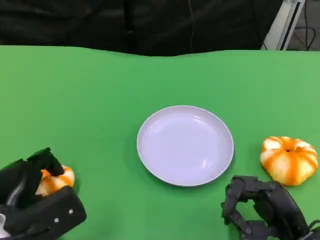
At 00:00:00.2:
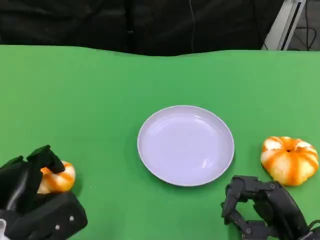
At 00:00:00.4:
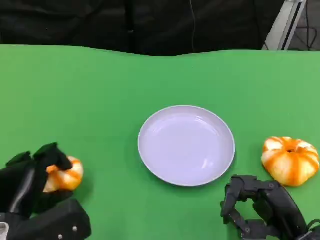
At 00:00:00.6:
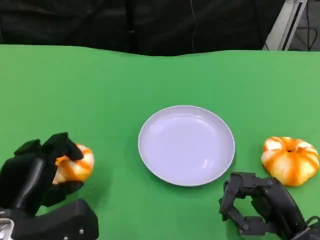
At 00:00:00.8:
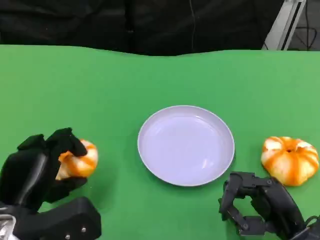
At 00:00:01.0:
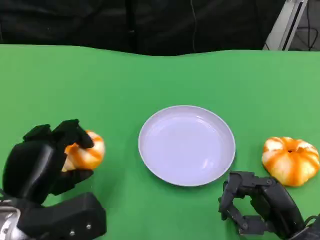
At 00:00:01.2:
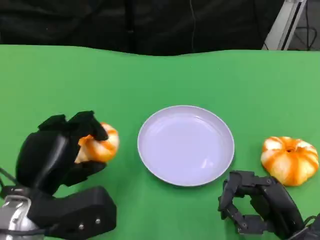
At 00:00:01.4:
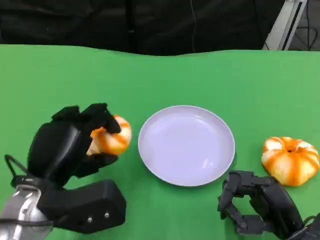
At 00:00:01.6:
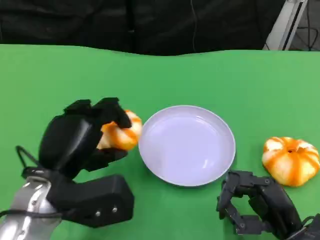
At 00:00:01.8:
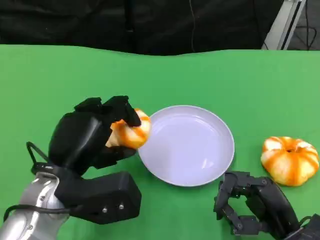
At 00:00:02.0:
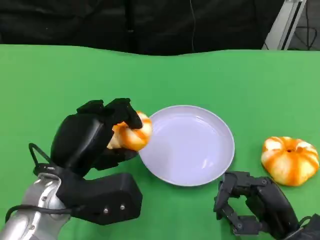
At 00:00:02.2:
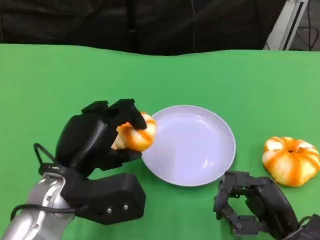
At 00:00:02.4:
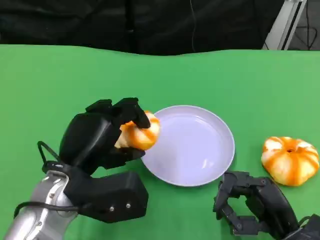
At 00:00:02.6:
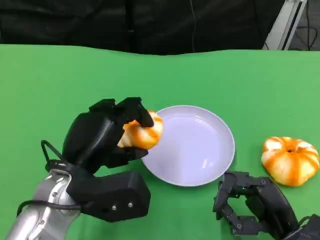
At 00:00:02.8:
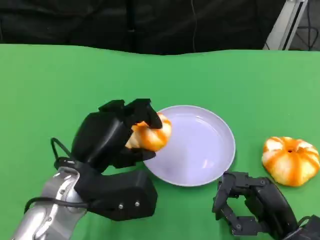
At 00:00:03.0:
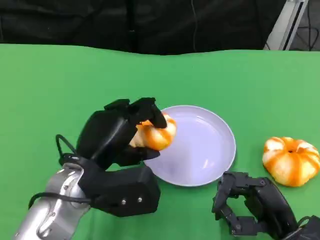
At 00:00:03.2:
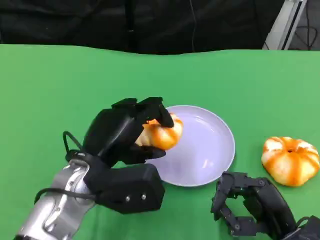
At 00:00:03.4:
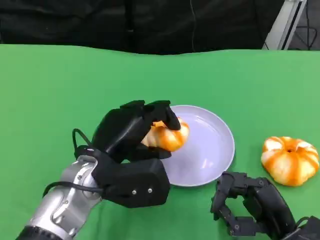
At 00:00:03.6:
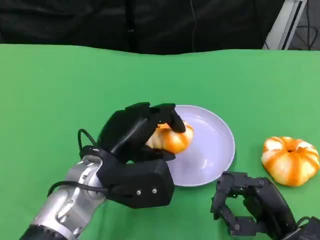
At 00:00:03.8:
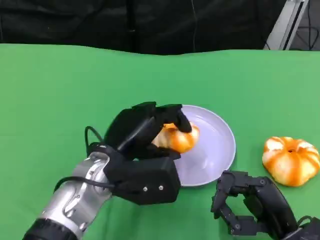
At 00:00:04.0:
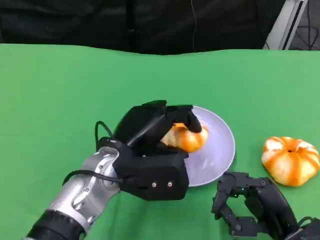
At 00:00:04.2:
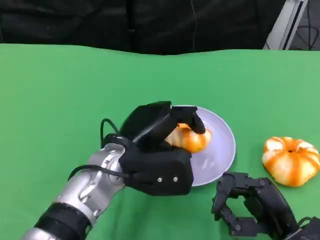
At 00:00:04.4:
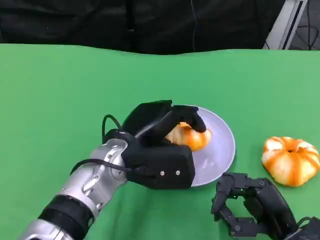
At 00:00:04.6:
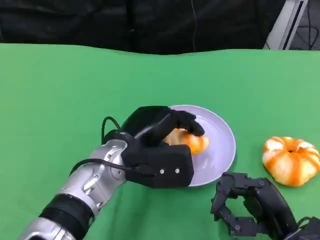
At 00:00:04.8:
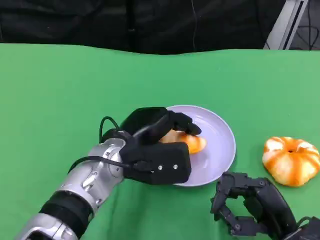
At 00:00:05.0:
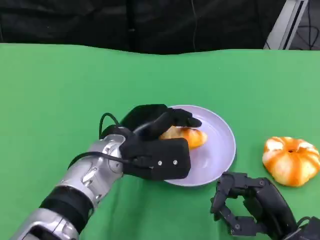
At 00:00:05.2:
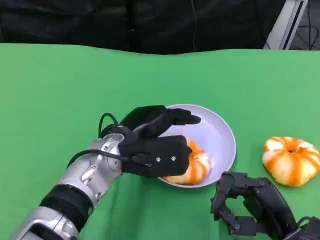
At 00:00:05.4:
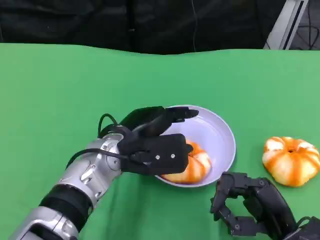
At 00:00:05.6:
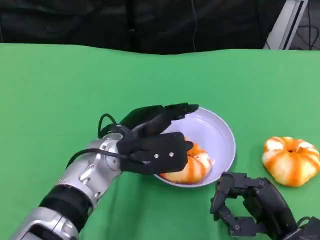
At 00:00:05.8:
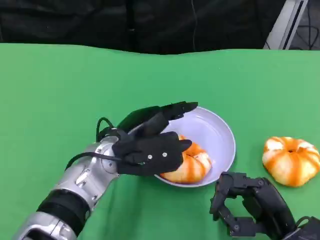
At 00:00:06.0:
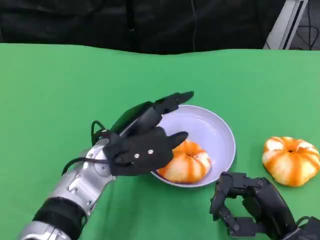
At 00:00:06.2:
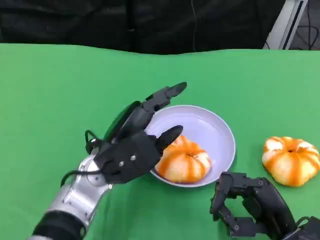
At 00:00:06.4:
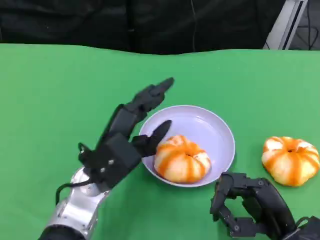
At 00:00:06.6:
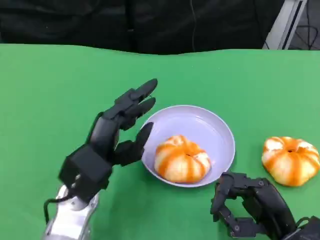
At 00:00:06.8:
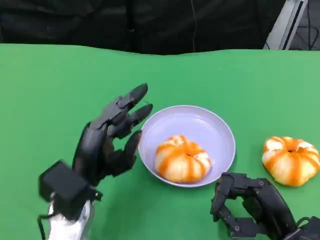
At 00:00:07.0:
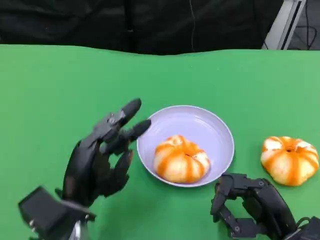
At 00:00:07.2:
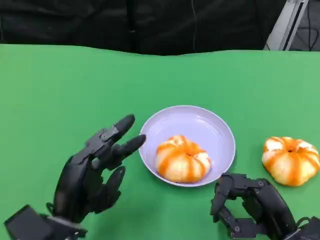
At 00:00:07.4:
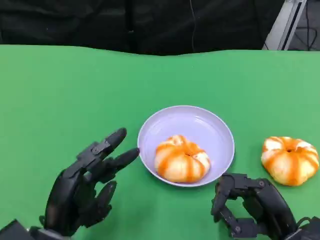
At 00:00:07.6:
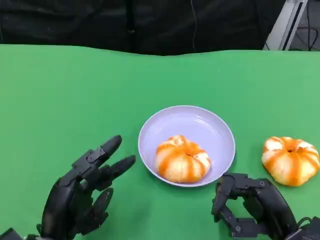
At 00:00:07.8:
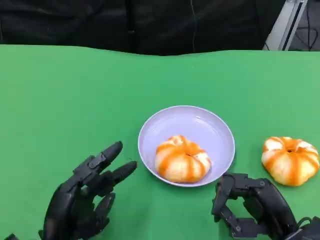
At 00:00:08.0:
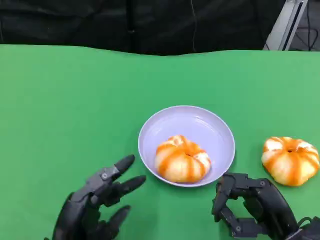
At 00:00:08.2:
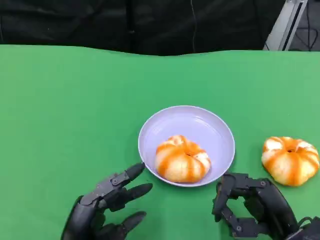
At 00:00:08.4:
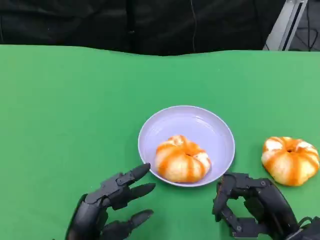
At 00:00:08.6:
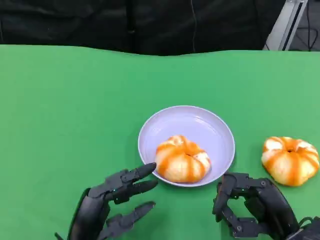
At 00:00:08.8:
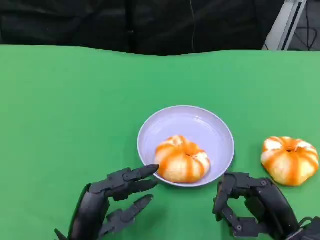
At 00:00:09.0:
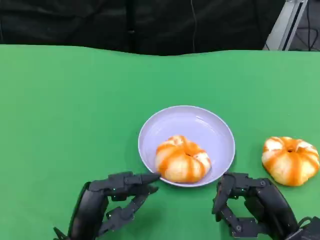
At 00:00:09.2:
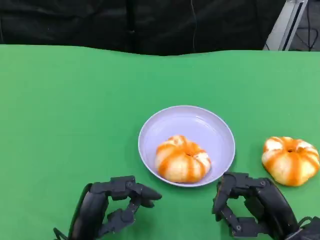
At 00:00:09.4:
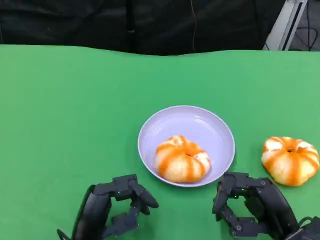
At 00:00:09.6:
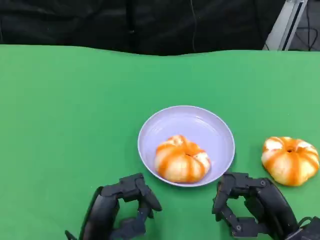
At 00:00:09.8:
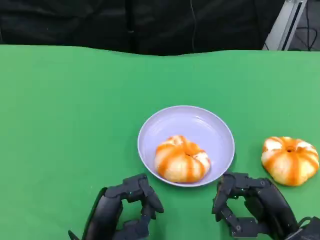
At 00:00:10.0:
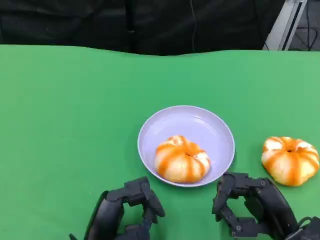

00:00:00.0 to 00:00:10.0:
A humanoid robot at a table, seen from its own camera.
Task of the whole recording: Grasp the bread from the table and place it into the plate.
00:00:00.0 to 00:00:01.4: The left hand moves upward and to the right, approximately 10 cm.
00:00:02.8 to 00:00:04.2: The left hand goes roughly 5 cm to the right.
00:00:04.2 to 00:00:05.8: The hands make only small movements.
00:00:05.8 to 00:00:07.2: The left hand heads backward, to the left and downward, covering approximately 15 cm.
00:00:07.2 to 00:00:08.6: There are only small adjustments of the hands.
00:00:08.6 to 00:00:10.0: The hands move only a little.

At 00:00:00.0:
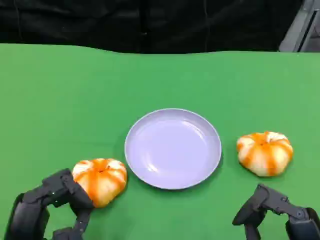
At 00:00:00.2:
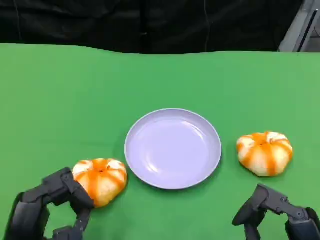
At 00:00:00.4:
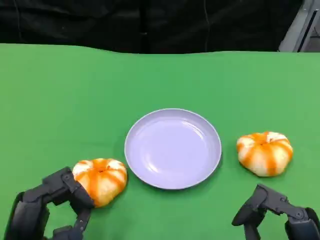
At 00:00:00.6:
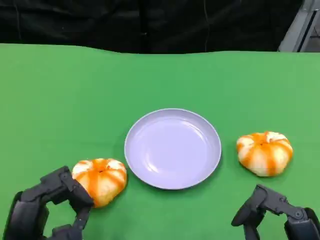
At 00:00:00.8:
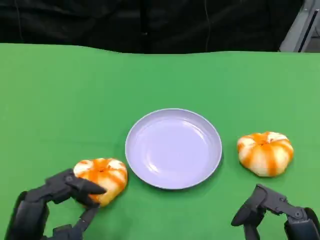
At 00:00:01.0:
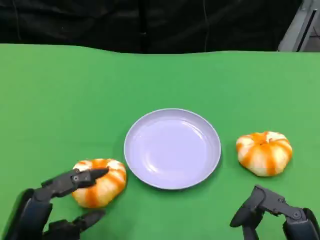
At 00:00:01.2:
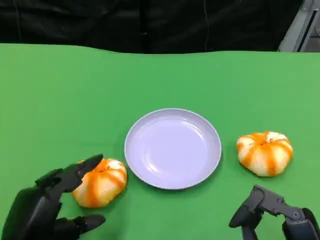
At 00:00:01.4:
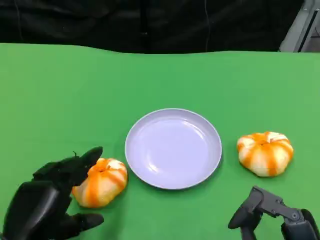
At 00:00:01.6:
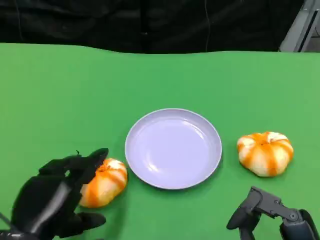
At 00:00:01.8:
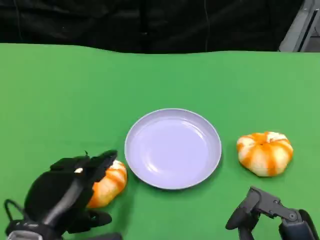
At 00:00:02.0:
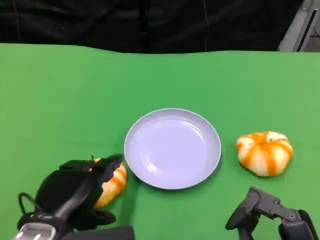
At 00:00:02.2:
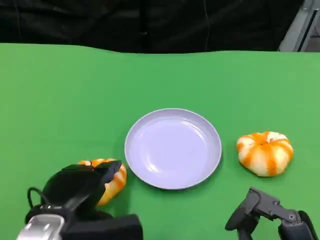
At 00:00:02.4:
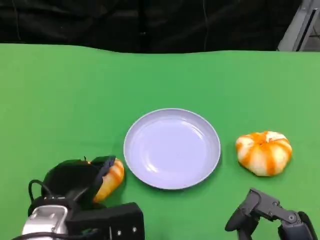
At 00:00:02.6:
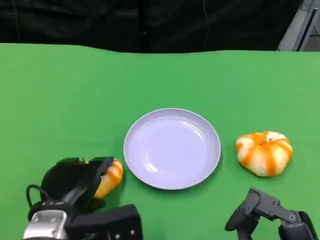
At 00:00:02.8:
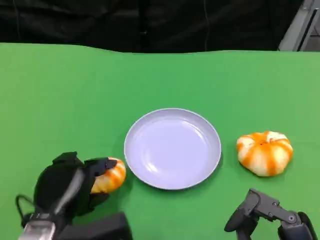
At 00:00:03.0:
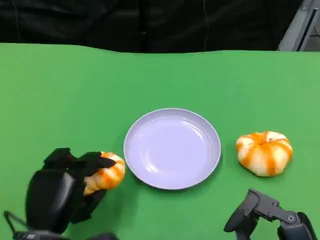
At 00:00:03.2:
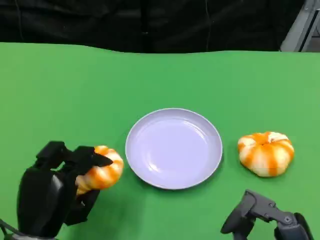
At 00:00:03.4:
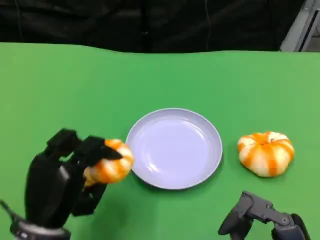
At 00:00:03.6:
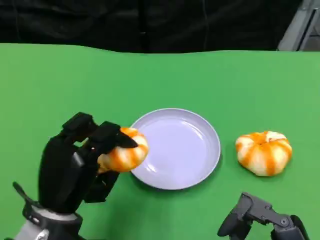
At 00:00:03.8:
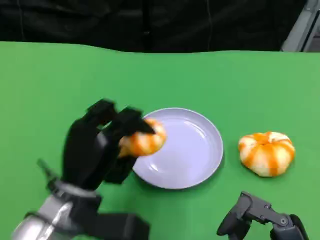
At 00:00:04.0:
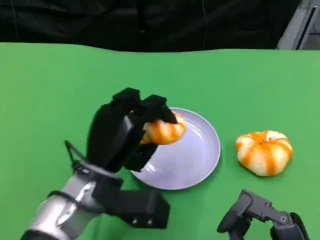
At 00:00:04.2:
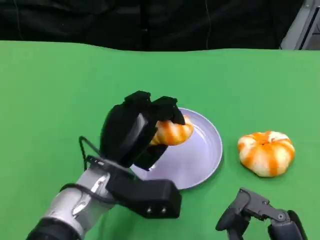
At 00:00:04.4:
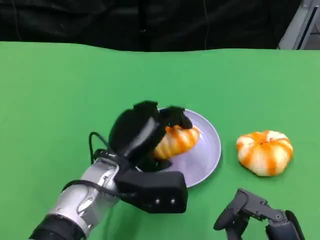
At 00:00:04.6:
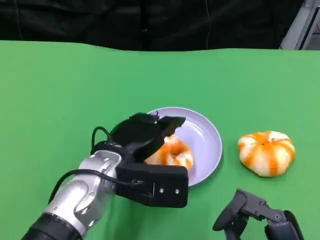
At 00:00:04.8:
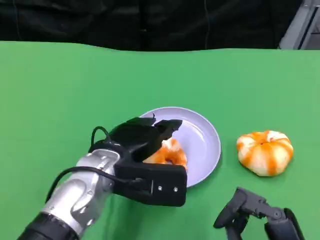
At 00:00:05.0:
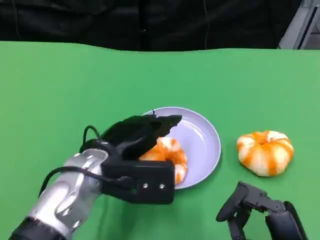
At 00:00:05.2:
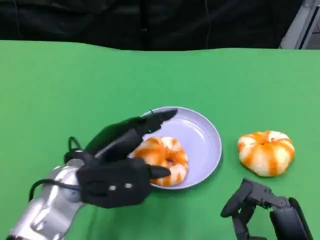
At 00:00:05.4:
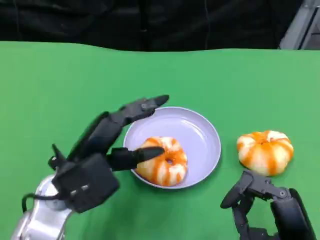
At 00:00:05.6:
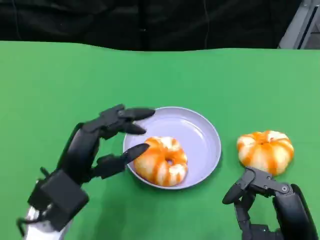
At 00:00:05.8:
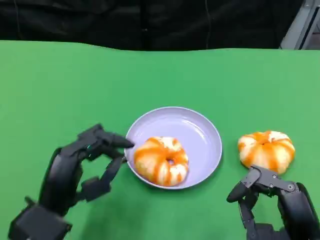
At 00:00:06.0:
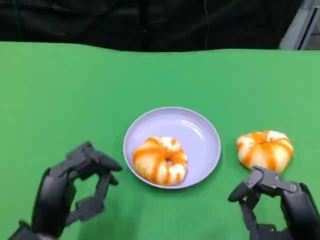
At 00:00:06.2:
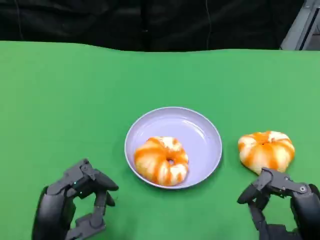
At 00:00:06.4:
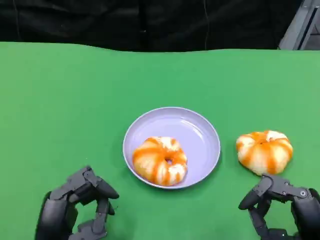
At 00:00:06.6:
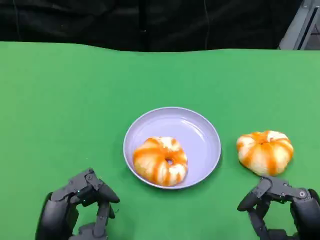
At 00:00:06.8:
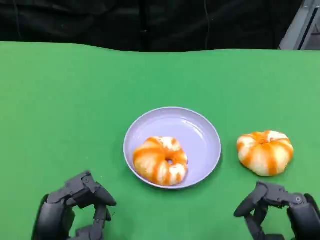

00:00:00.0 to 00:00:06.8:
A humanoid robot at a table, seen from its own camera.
Task of the whole recording: Grasp the bread from the table and place it into the plate.
00:00:01.4 to 00:00:02.8: The left hand shifts by some 5 cm.
00:00:02.8 to 00:00:04.0: The left hand travels to the right and forward by about 10 cm.
00:00:04.0 to 00:00:05.4: The left hand moves roughly 5 cm.
00:00:05.4 to 00:00:06.8: The left hand shifts roughly 10 cm backward and downward.

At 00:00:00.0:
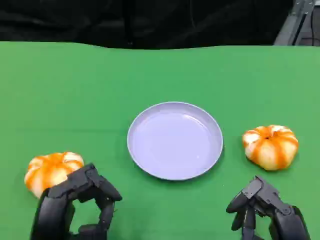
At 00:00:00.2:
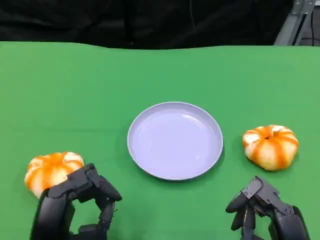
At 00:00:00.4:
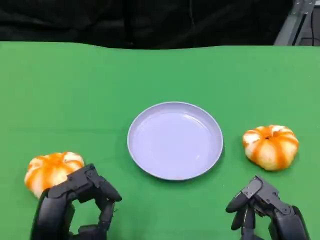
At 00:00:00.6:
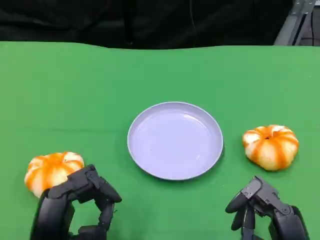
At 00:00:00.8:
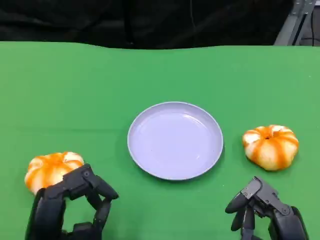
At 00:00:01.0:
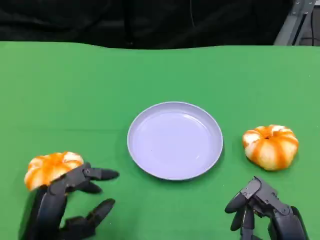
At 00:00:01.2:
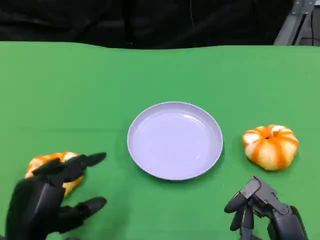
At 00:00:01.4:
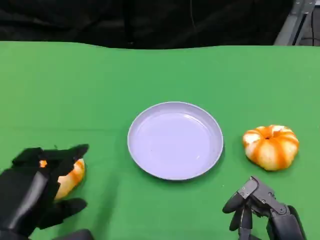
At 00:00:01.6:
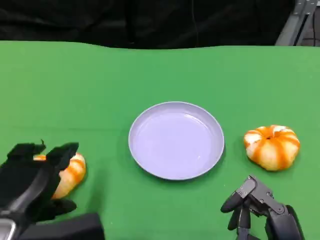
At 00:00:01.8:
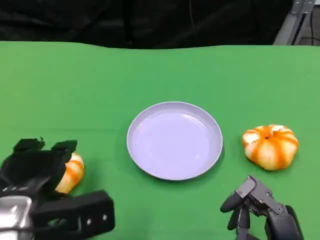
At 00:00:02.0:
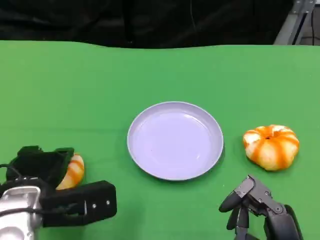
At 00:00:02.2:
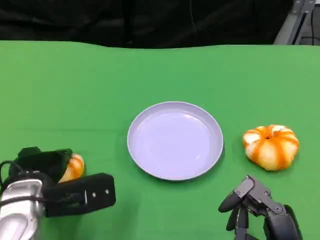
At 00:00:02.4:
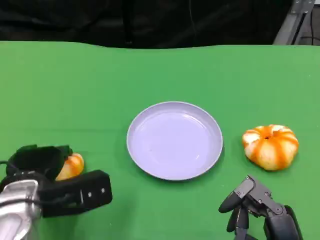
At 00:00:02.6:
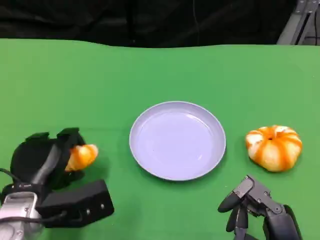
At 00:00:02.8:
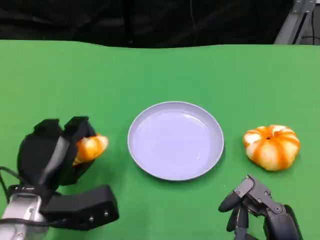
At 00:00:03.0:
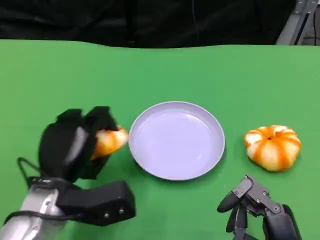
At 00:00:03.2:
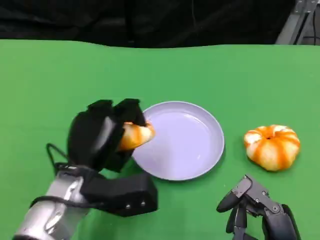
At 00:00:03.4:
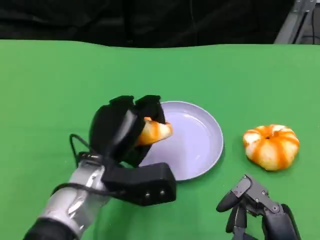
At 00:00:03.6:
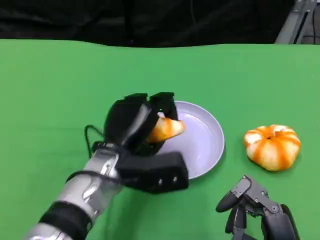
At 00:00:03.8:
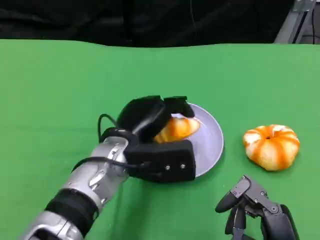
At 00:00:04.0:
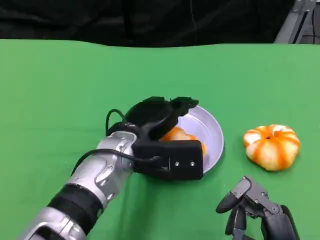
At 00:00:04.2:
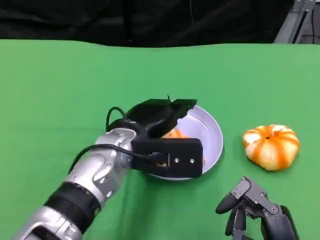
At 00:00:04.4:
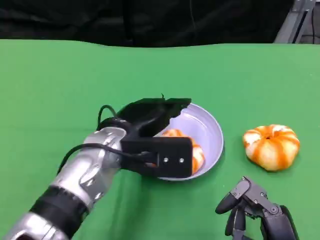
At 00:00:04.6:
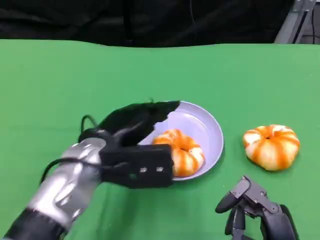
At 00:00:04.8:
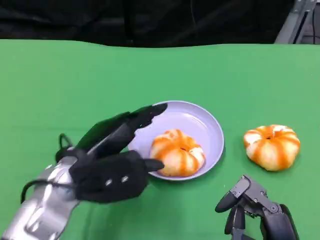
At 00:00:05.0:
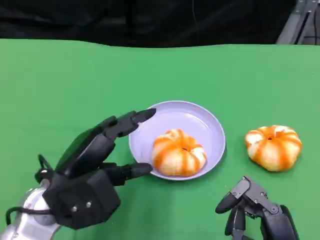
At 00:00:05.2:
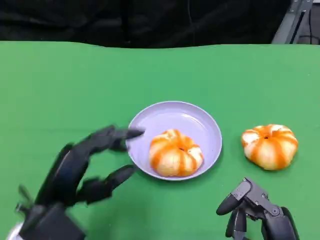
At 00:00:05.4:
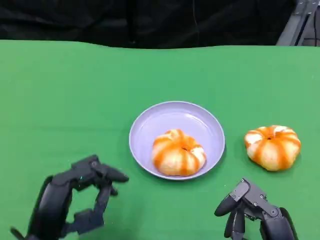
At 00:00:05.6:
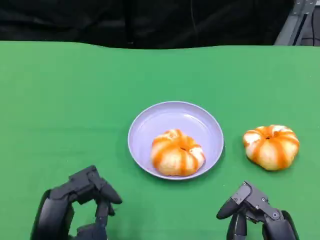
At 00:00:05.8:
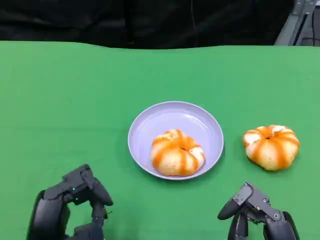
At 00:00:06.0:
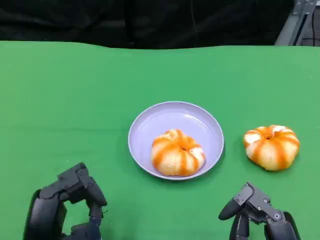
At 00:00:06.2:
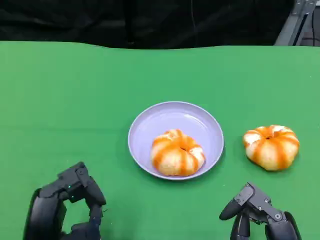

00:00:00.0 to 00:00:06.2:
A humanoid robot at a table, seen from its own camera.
Task of the whole recording: Grasp the bread from the table and place it into the plate.
00:00:00.0 to 00:00:01.6: The left hand goes some 5 cm upward.
00:00:01.6 to 00:00:03.2: The left hand moves to the right and forward, approximately 10 cm.
00:00:04.6 to 00:00:06.2: The left hand travels backward, downward and to the left by some 15 cm.
